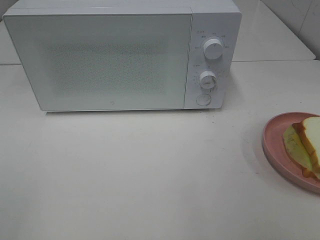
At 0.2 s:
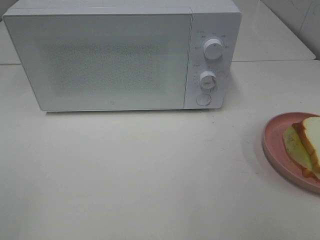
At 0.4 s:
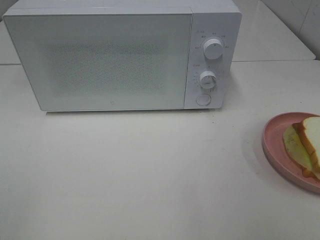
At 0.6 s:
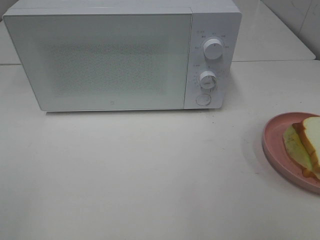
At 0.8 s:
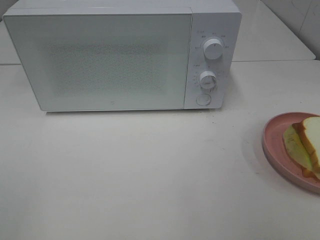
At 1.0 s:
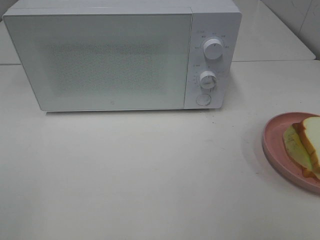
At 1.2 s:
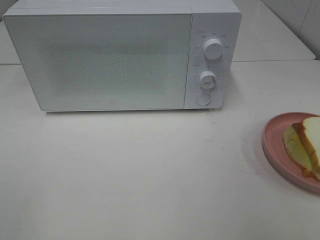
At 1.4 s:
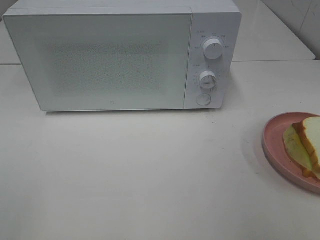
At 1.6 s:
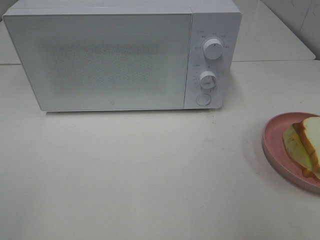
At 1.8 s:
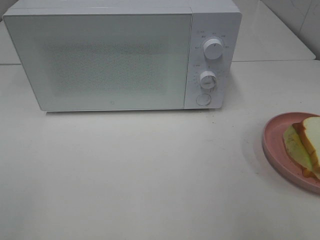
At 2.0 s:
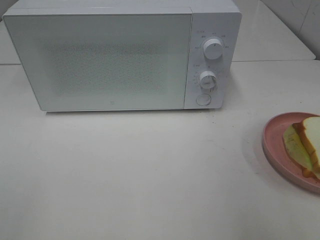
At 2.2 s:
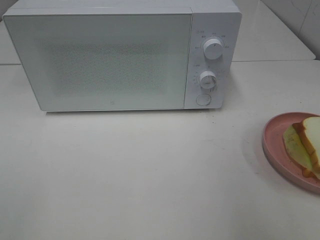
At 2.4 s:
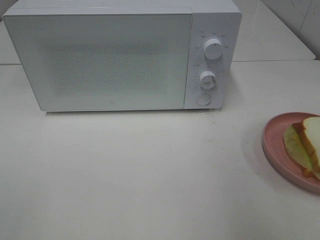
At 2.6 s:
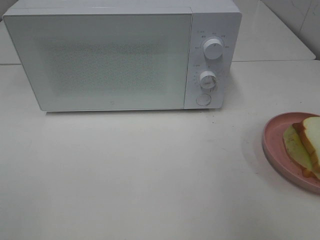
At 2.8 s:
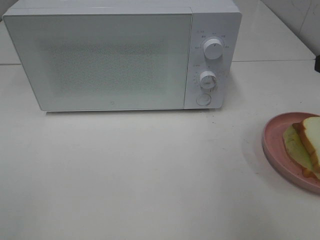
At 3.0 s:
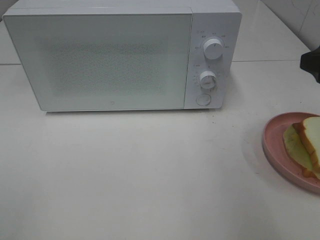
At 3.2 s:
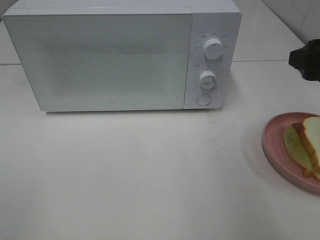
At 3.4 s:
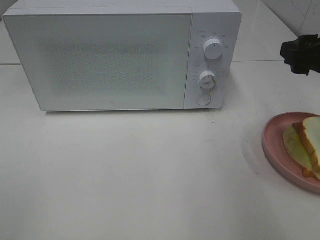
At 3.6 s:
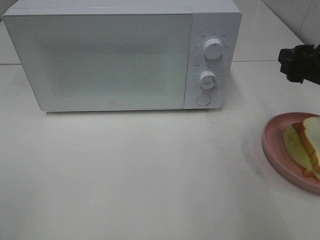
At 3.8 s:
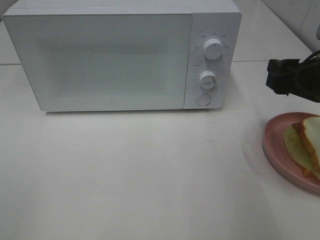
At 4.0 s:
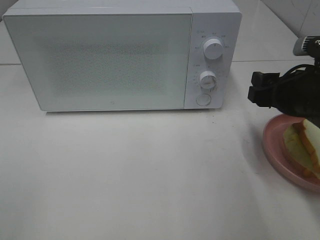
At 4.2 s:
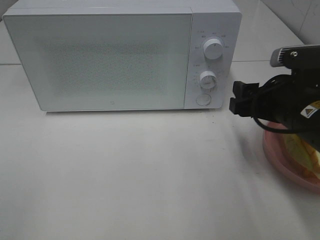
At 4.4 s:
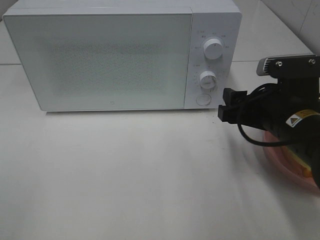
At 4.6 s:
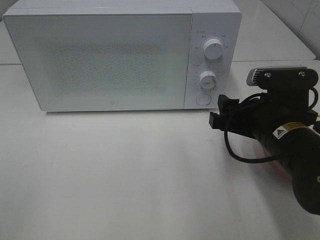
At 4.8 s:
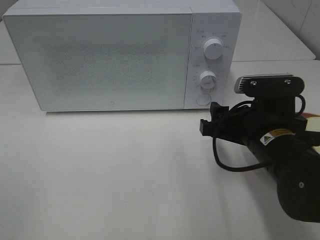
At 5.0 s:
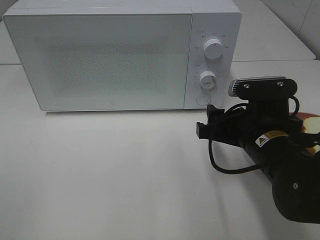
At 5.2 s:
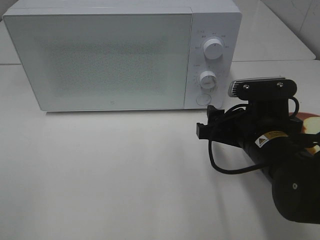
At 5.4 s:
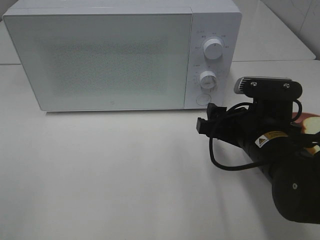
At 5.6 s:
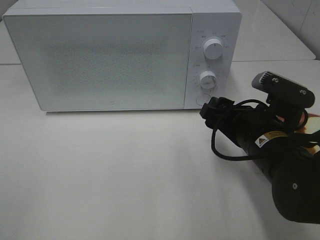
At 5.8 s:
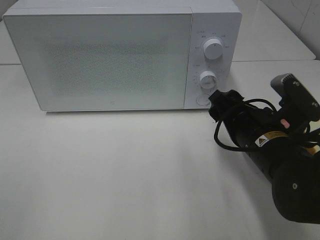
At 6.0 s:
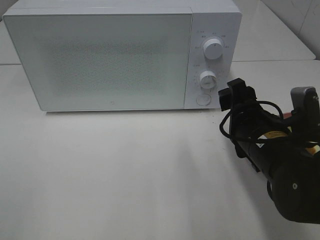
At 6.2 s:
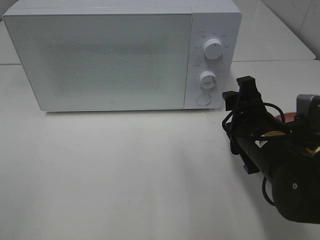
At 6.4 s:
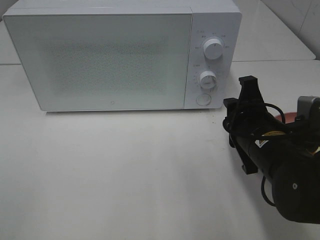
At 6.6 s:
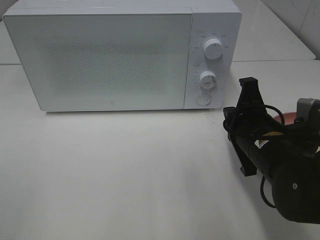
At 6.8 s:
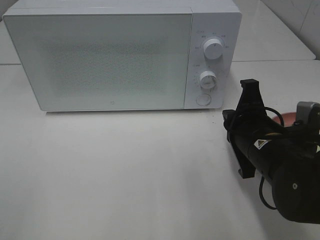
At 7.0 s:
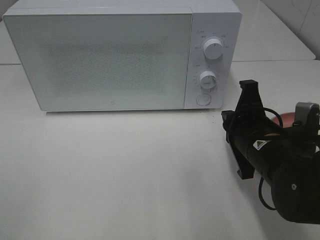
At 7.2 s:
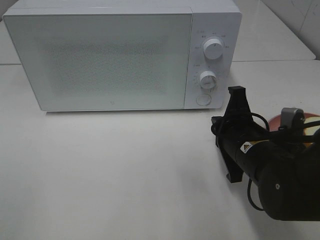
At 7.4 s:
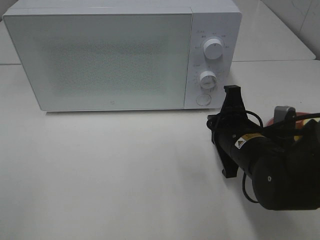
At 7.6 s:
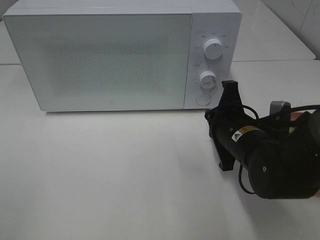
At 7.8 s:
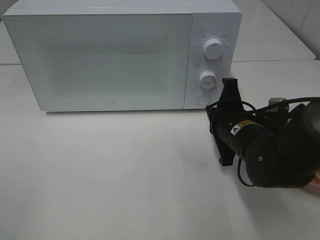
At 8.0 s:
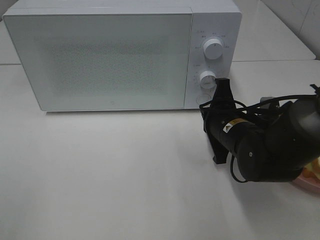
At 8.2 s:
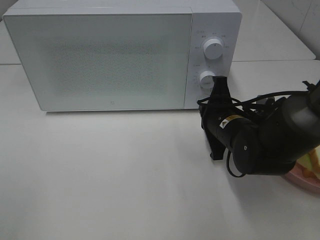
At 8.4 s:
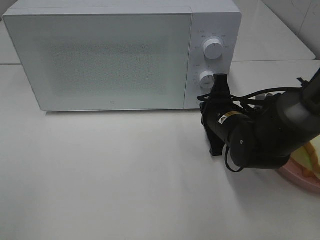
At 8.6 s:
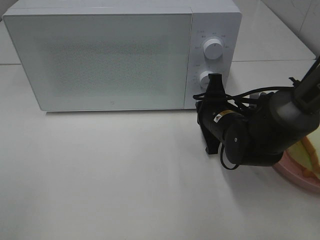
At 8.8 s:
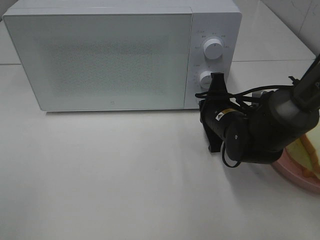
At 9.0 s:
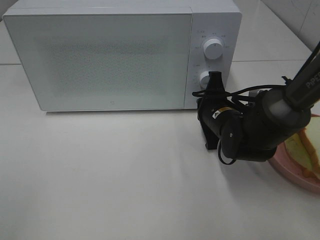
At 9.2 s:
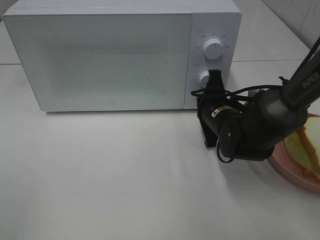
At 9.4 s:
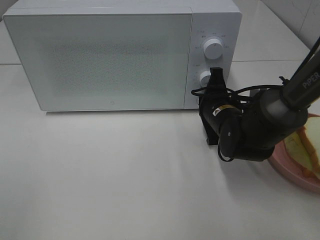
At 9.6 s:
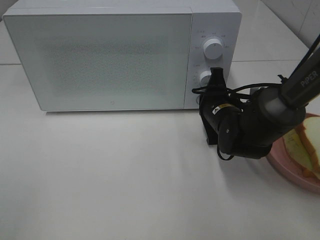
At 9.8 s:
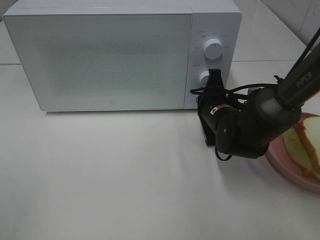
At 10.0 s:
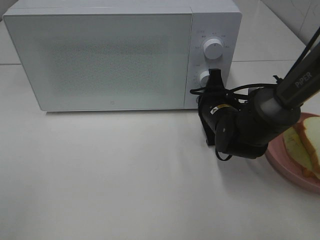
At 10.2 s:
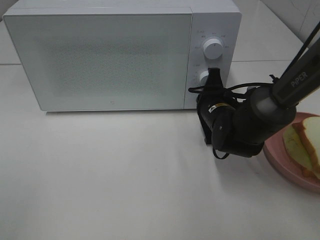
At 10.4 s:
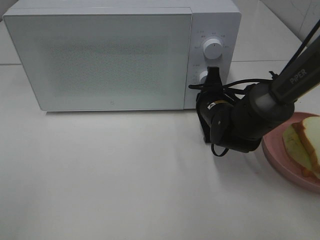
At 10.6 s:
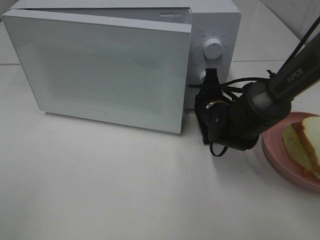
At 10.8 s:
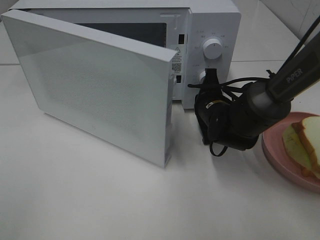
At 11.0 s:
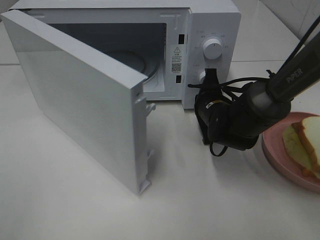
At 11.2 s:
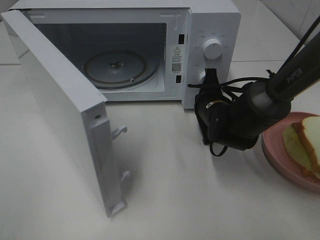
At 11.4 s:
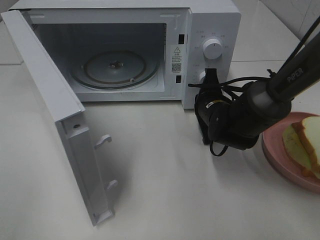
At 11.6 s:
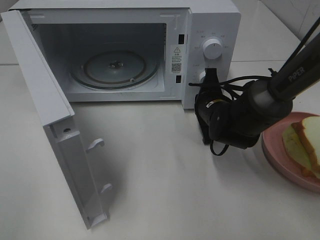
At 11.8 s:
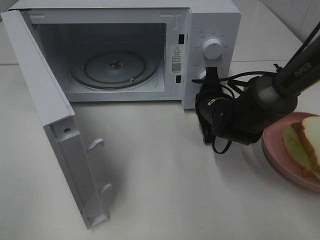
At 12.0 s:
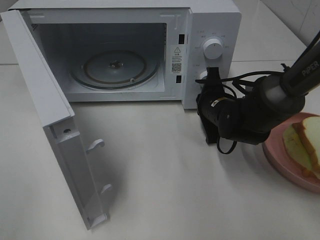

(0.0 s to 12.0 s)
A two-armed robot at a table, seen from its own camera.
Task of the whole recording: Heat Sandwich.
1.6 s - 3.0 s: The right gripper moves forward, some 15 cm.
3.0 s - 4.4 s: The right gripper heads downward and to the left, covering some 15 cm.
6.0 s - 7.6 s: The right gripper closes its fingers.
7.6 s - 9.0 s: The right gripper travels forward by roughly 5 cm.
9.0 s - 10.4 s: There are only small adjustments of the grippers.

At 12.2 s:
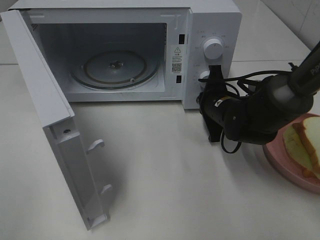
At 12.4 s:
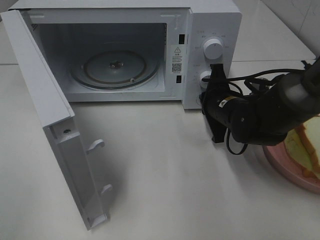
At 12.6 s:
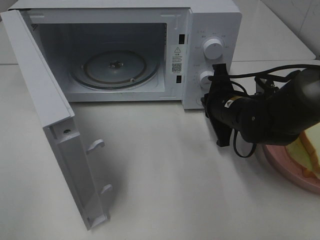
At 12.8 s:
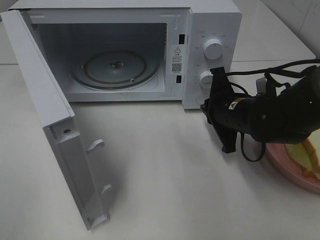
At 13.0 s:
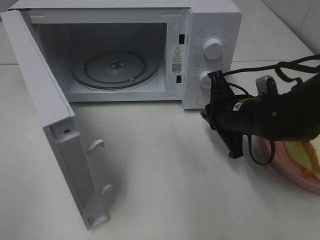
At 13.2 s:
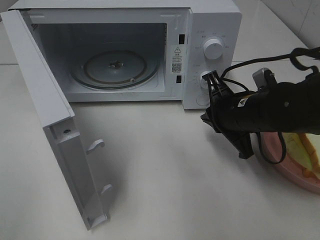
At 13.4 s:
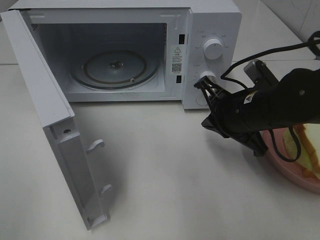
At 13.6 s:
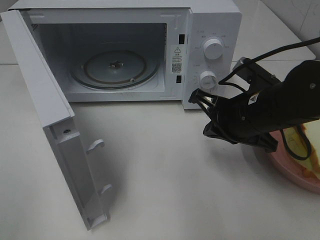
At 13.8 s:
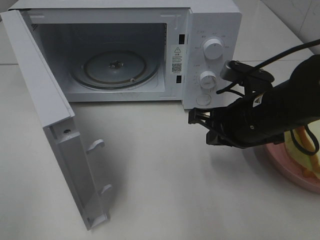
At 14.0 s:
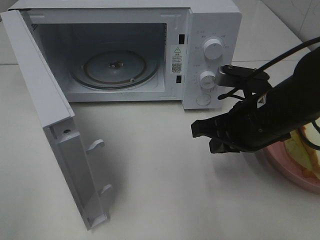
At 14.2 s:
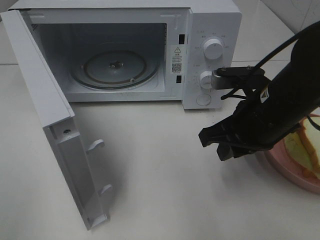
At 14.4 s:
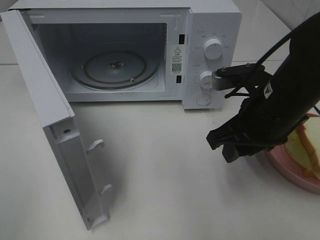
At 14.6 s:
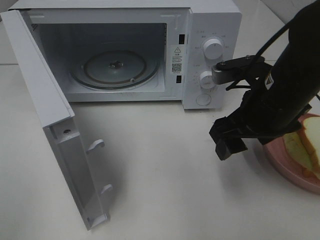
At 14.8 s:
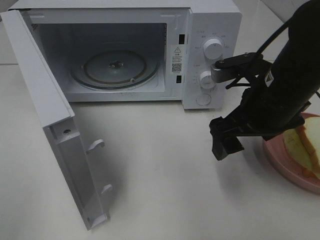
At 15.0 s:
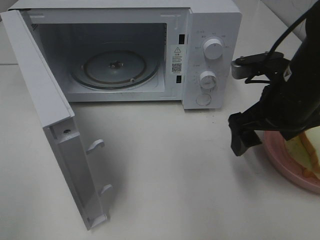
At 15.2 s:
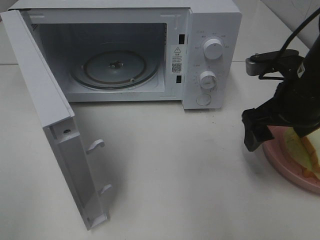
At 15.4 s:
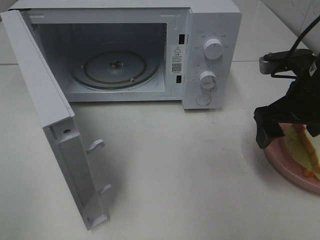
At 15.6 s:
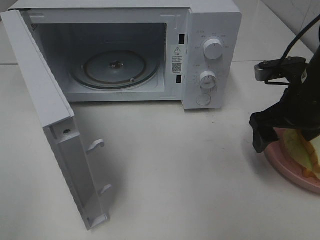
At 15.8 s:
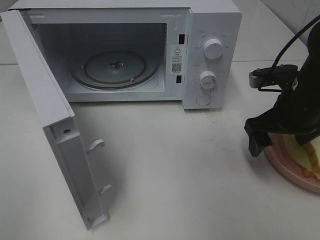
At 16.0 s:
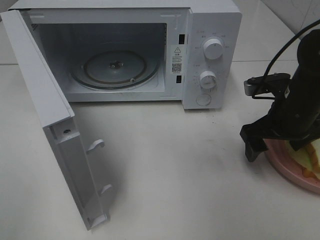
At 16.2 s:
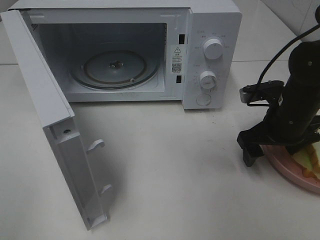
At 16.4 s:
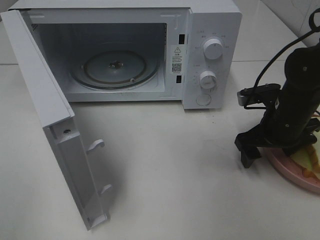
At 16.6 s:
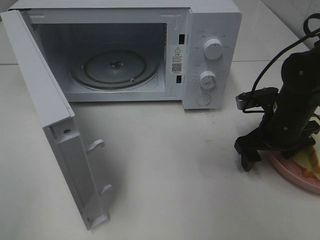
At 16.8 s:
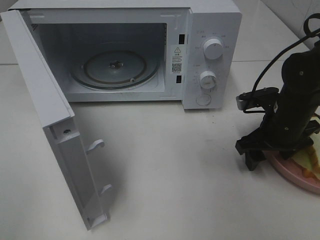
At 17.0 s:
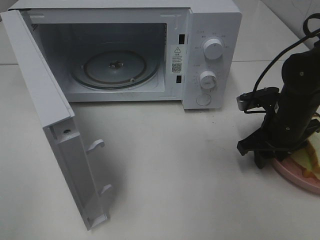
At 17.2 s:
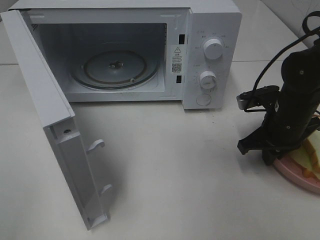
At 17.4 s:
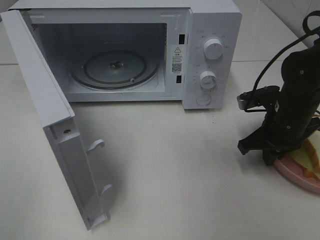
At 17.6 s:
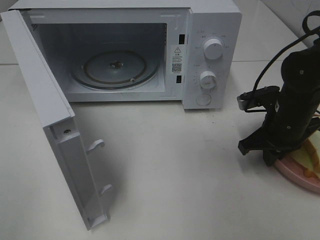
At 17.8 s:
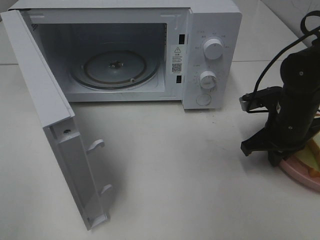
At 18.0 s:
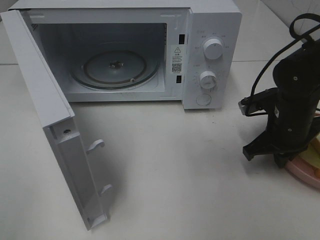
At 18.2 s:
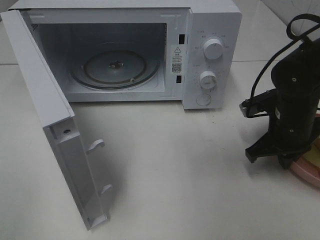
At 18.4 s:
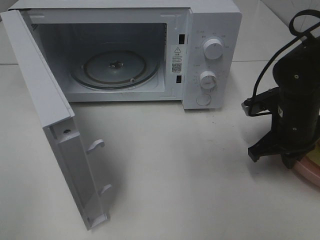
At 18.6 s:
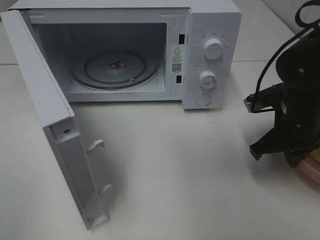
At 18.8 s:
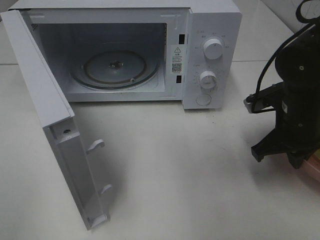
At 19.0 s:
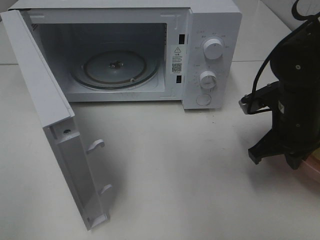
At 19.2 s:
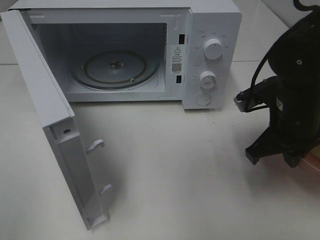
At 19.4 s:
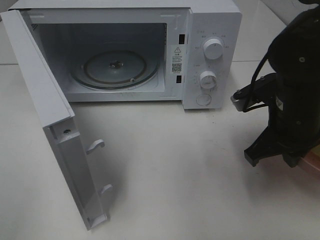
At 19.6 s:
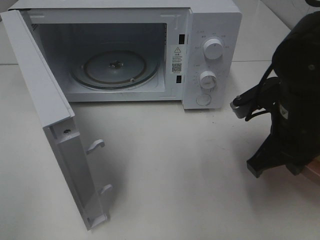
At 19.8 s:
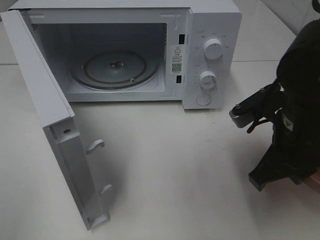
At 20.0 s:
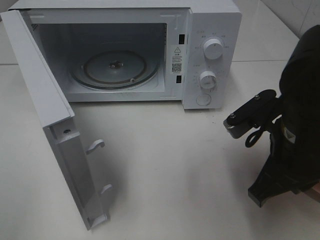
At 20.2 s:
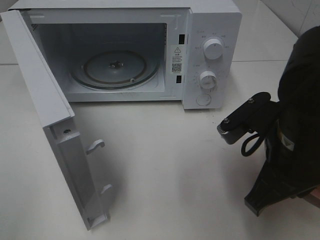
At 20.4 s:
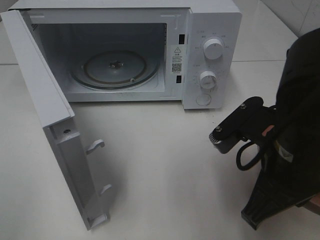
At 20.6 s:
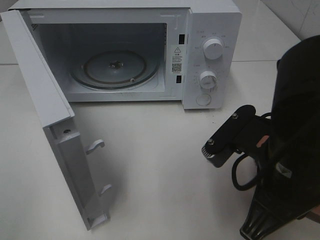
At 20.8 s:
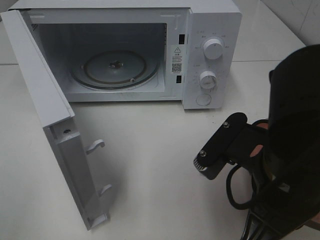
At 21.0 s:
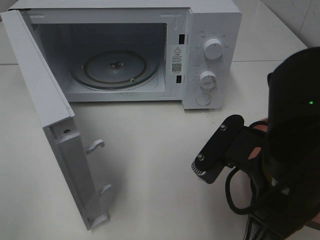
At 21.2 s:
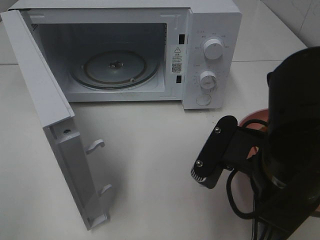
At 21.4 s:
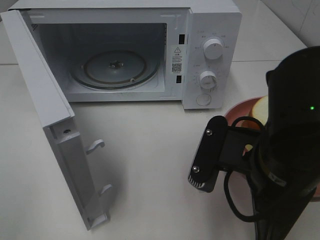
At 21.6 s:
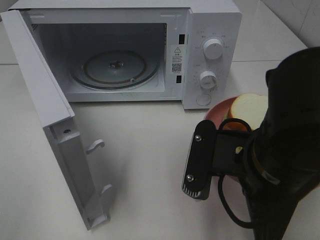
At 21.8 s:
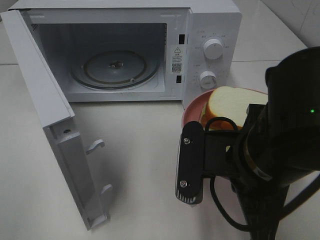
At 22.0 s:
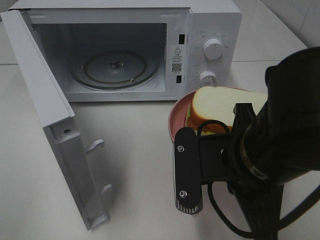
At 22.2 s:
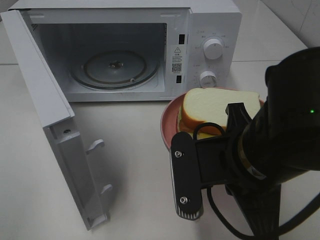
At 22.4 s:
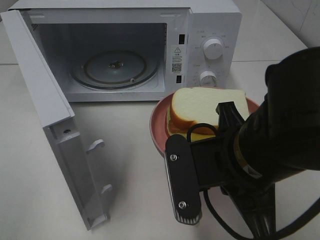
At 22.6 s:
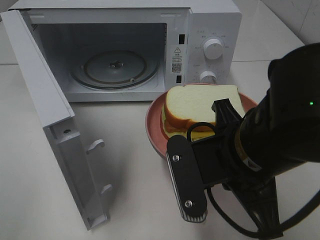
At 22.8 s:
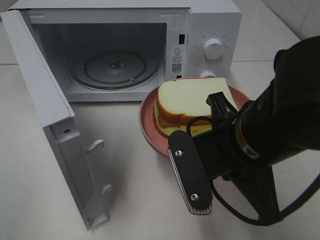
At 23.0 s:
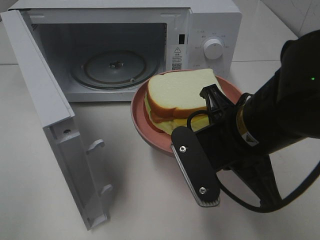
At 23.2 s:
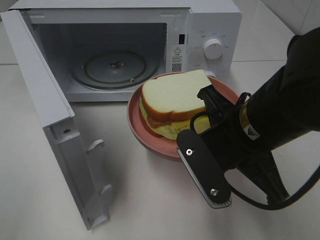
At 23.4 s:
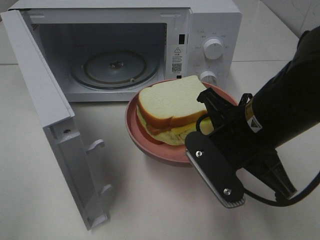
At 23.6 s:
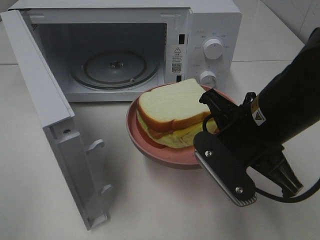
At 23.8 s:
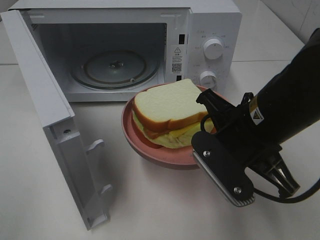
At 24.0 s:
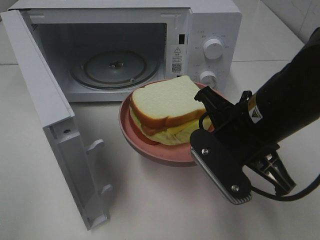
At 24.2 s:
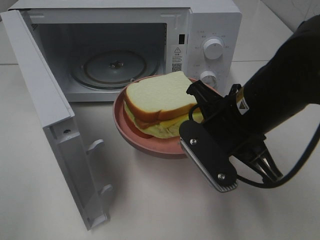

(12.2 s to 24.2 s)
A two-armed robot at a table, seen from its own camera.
Task of the whole recording: Heat Sandwich.
Step, 12.6 s - 18.0 s: Right hand: grab the plate with the sandwich.
12.2 s - 13.8 s: The right gripper shifts approximately 15 cm backward and upward.
13.8 s - 15.2 s: The right gripper heads to the right, covering some 5 cm, and opens up.
15.2 s - 16.6 s: The right gripper shifts roughly 10 cm downward.
16.6 s - 18.2 s: The right gripper closes up.
18.2 s - 19.8 s: The right gripper heads backward, upward and to the left, covering about 10 cm.
19.8 s - 21.2 s: The right gripper heads backward and to the left, covering roughly 10 cm.
22.6 s - 24.2 s: The right gripper heads forward, covering some 5 cm.
